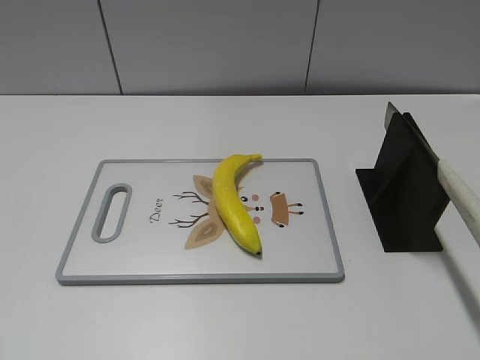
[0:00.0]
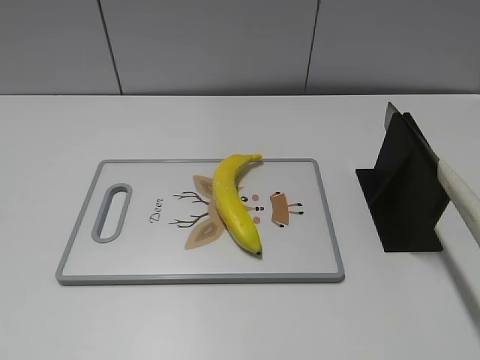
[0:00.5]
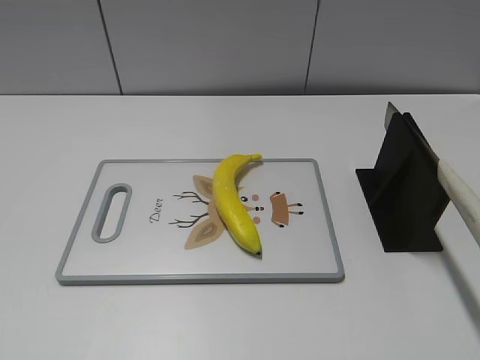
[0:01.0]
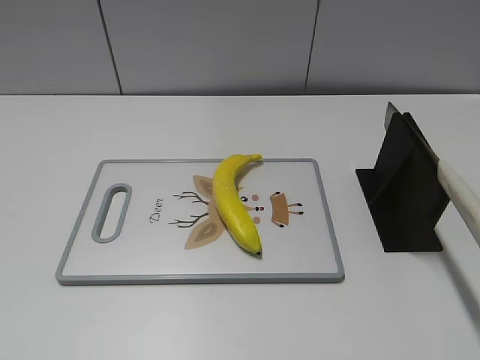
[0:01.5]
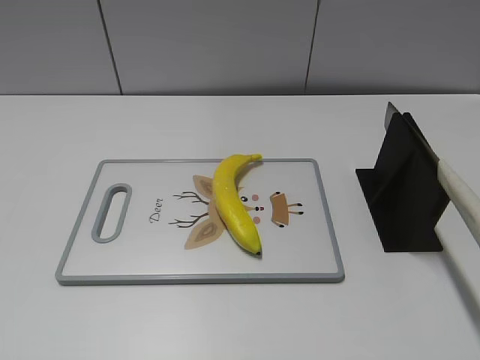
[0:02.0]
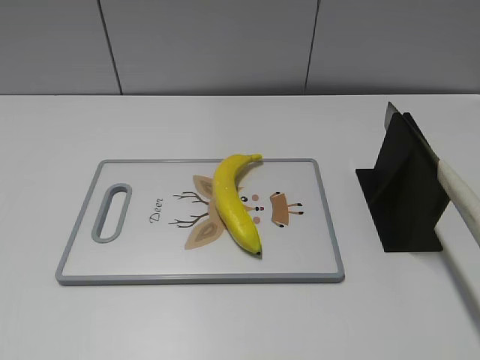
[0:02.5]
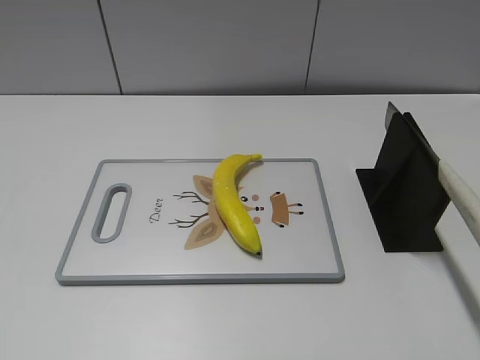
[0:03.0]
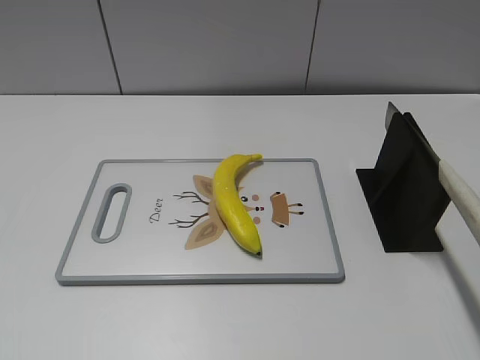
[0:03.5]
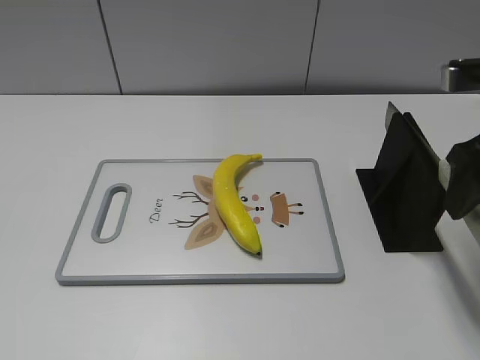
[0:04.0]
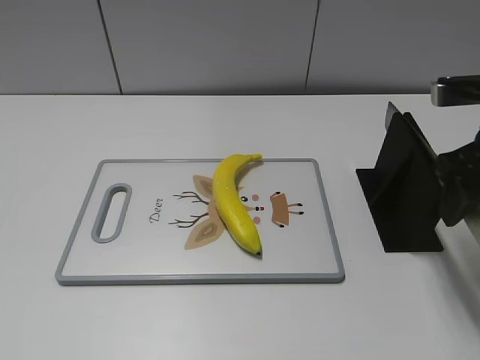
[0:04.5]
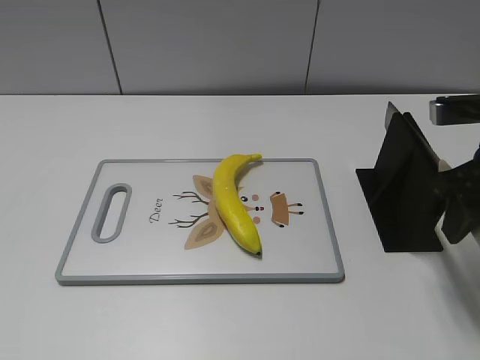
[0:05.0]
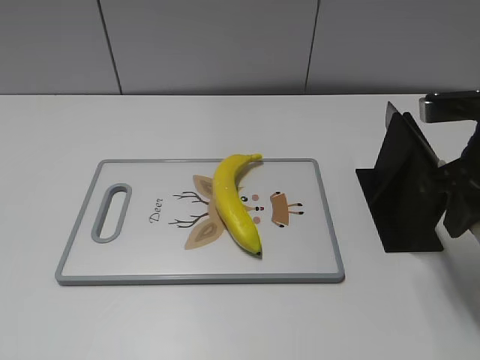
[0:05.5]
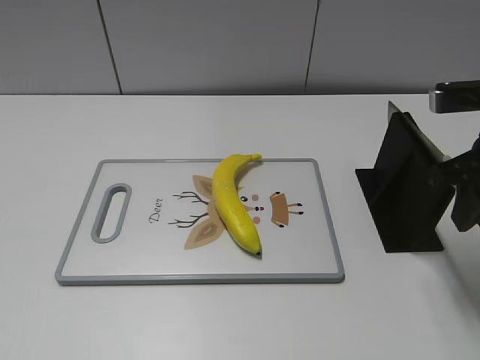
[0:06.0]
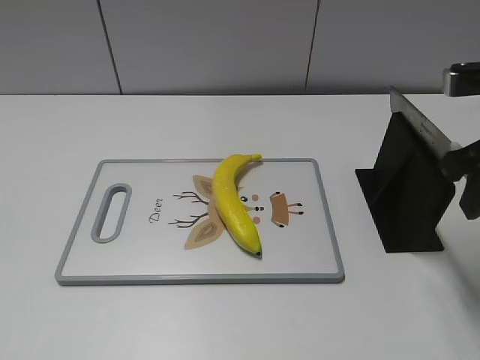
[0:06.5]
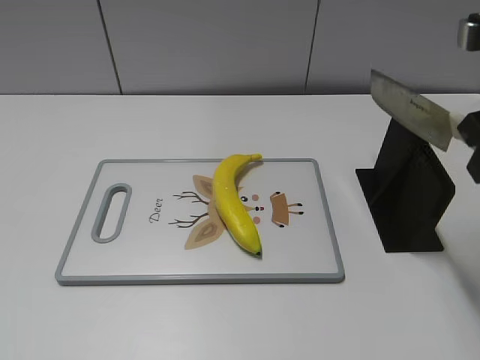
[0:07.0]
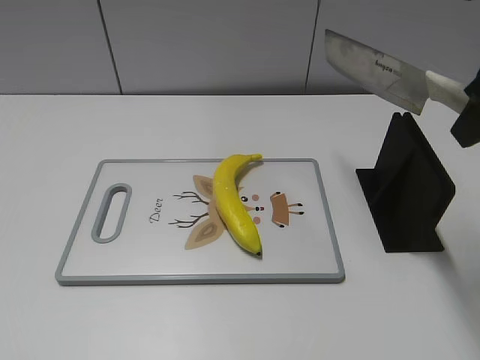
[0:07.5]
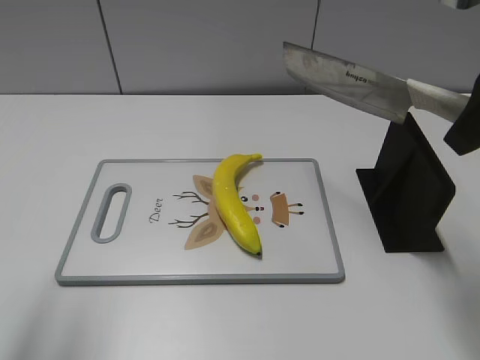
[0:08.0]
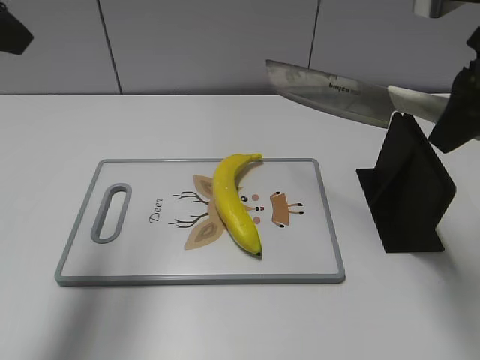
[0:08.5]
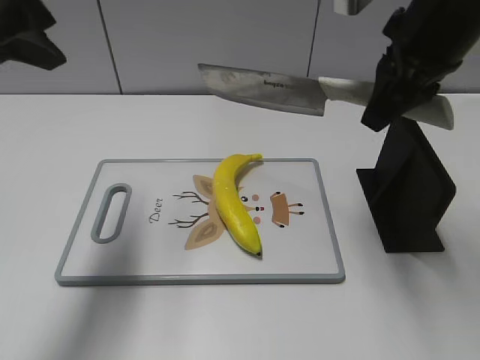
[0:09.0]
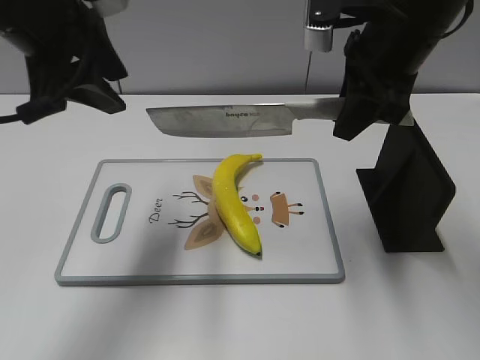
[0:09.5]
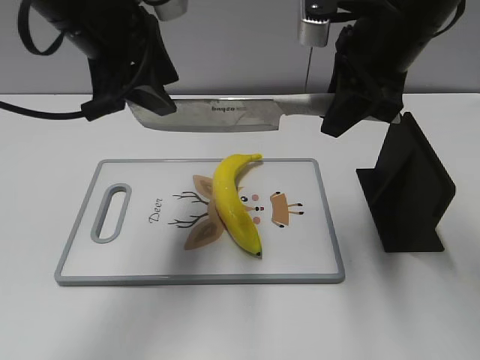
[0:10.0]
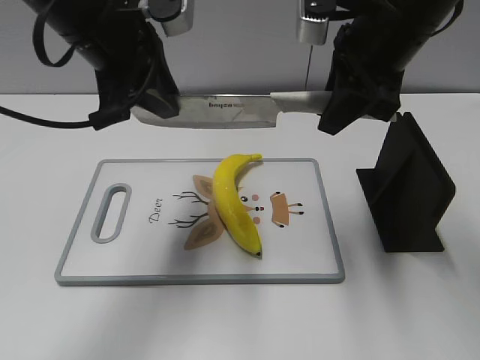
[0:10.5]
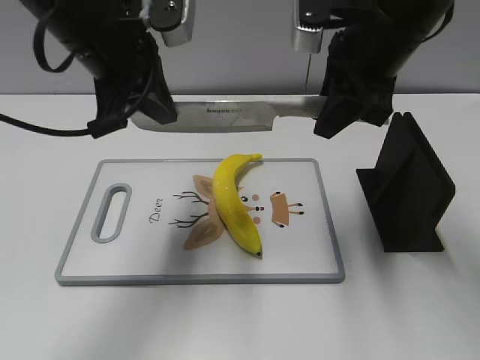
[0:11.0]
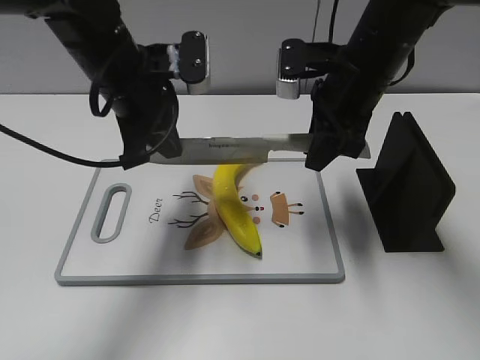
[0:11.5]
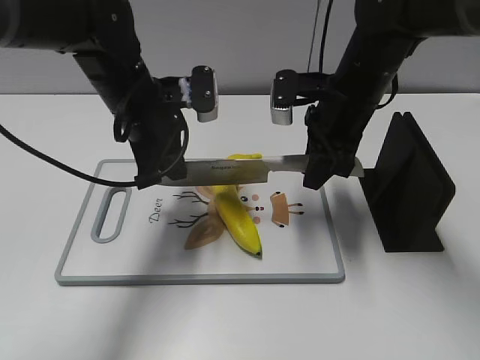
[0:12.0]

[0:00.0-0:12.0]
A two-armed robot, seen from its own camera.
Task of the whole recording: cut plastic banana.
Step, 0:00.0 to 0:06.5: Grab the knife handle with your right hand.
0:02.0 to 0:04.0: The right gripper moves forward, roughly 25 cm.
0:04.0 to 0:06.0: The right gripper closes its fingers.
0:06.0 to 0:08.0: The right gripper moves upward, roughly 10 cm. Meanwhile the left gripper travels forward and upward by roughly 20 cm.
0:08.0 to 0:10.0: The right gripper travels to the left and forward by approximately 10 cm, while the left gripper travels forward and to the right by approximately 20 cm.
0:10.0 to 0:12.0: Both grippers move downward, about 10 cm. The left gripper closes up.

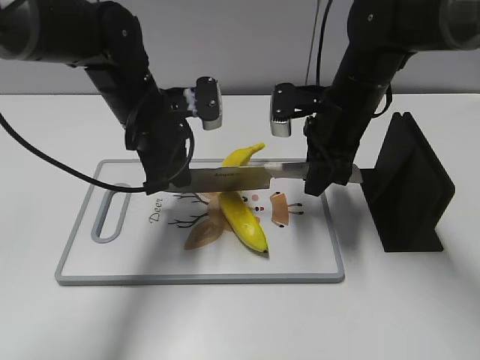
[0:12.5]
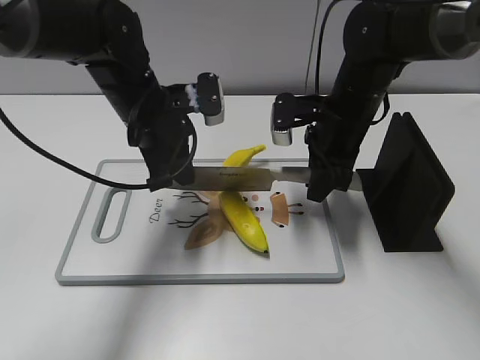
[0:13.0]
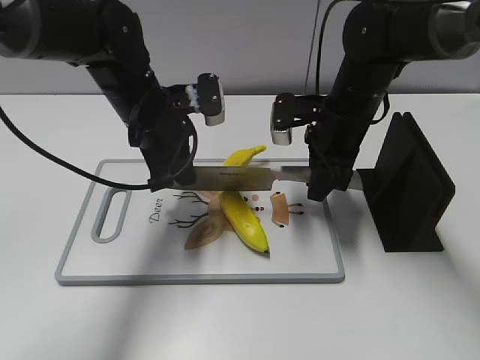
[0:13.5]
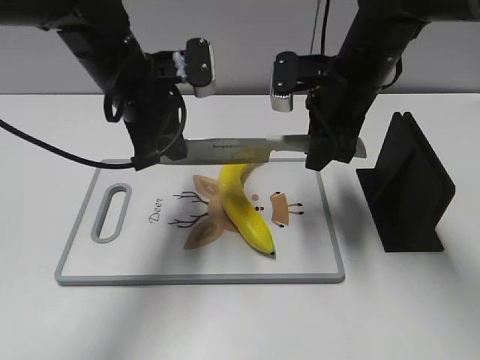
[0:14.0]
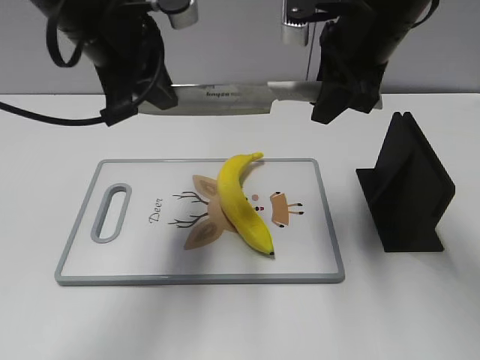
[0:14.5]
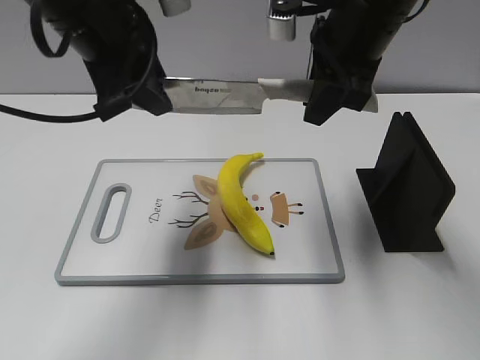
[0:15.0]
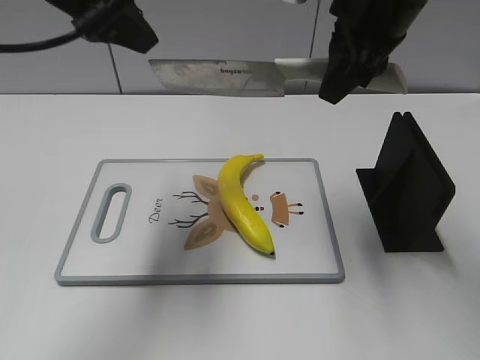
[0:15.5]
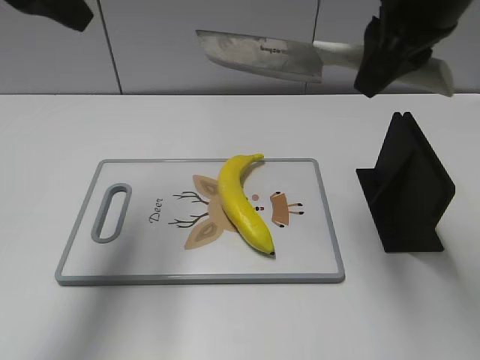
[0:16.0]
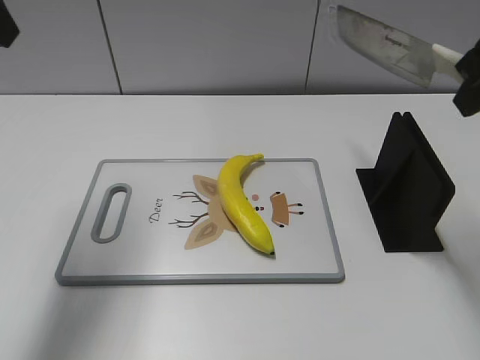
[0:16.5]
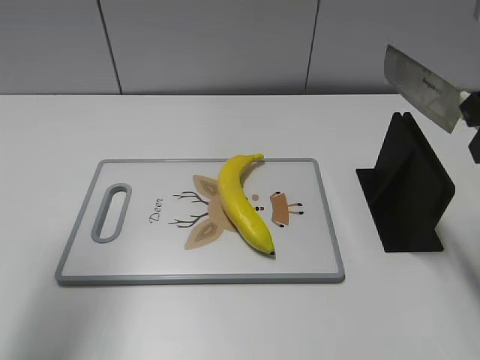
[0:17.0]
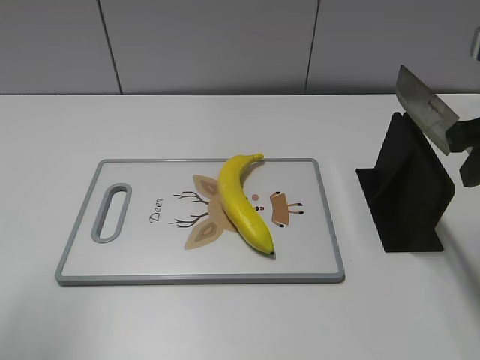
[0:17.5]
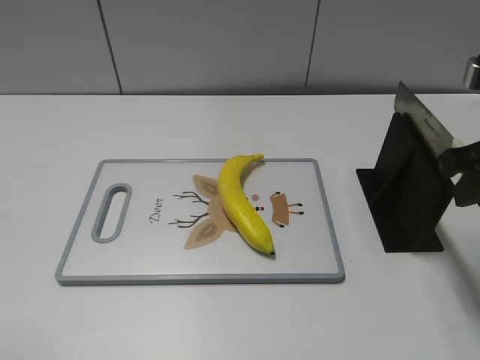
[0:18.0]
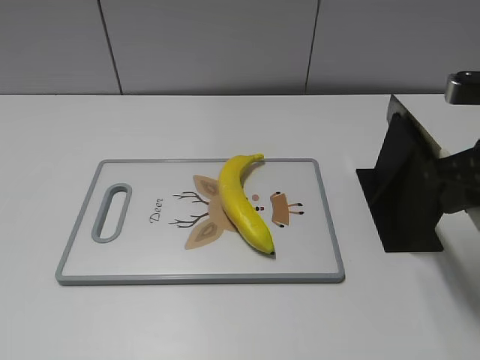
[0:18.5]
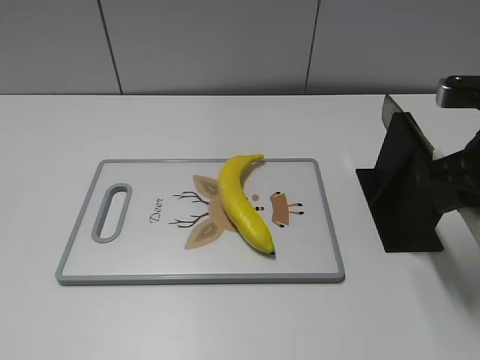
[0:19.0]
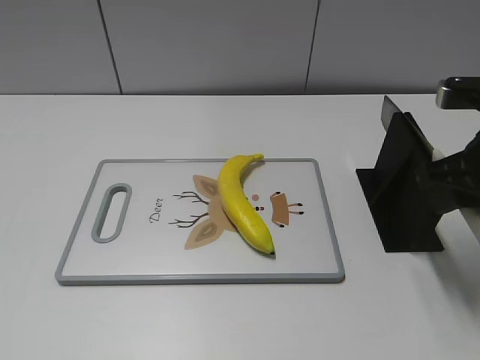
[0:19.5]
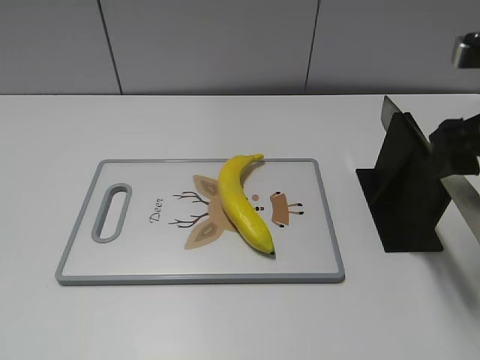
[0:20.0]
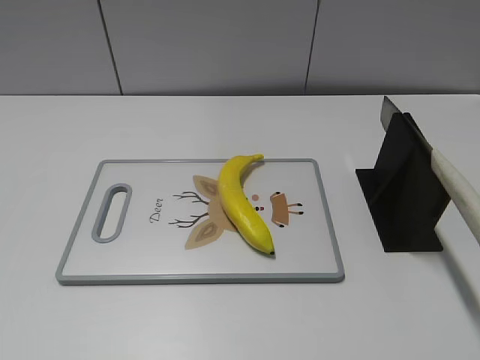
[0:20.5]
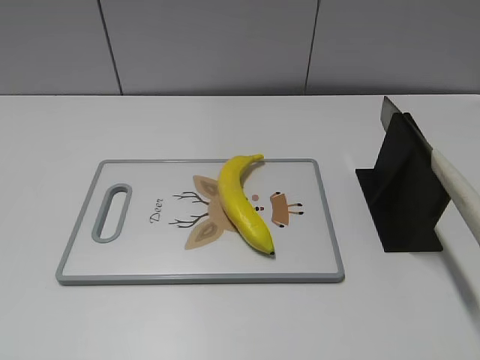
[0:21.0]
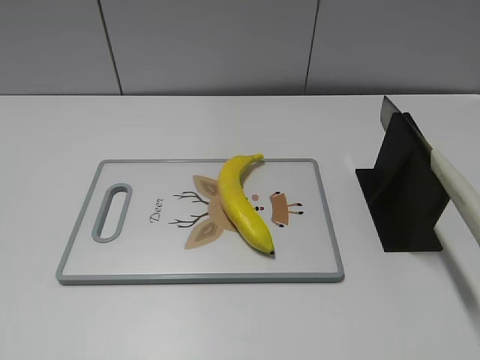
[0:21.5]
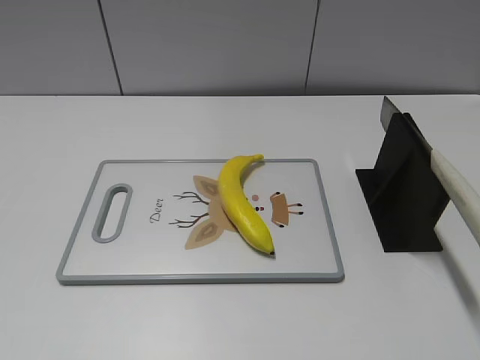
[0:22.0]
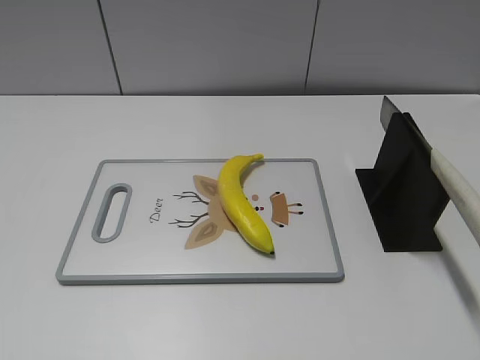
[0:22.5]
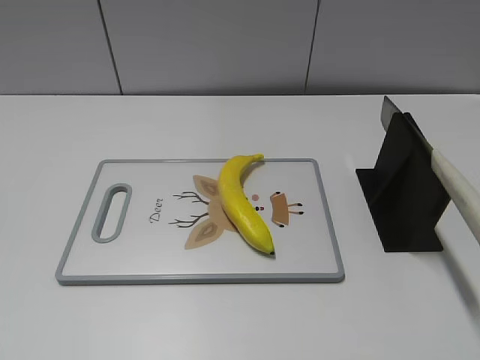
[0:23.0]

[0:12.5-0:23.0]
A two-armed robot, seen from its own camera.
Task of the whole recording: cut plastic banana.
Step, 0:13.5 to 0:15.0: Cut the banana with your right hand.
Step, 0:15.5 to 0:18.5: Lift the knife with your right hand.
Step, 0:19.0 to 0:23.0: Place the knife on the storage rack with your right hand.
0:12.5 to 0:14.5: The two grippers go some 15 cm upward.
0:14.5 to 0:16.5: The left gripper travels to the left and upward by roughly 15 cm, and opens up; the right gripper goes approximately 15 cm to the right, backward and upward.
0:16.5 to 0:19.0: The right gripper travels downward by approximately 15 cm, while the left gripper travels backward by roughly 30 cm.
0:19.0 to 0:21.0: The right gripper is displaced backward by about 20 cm, and opens up.

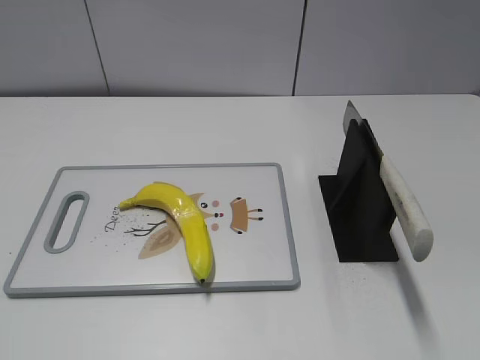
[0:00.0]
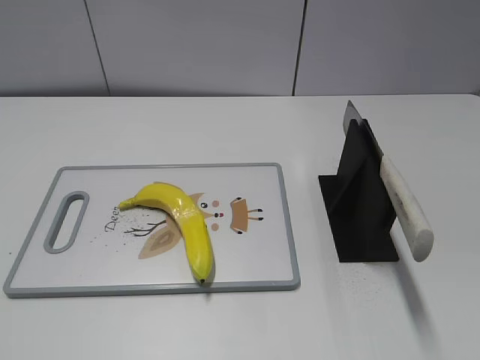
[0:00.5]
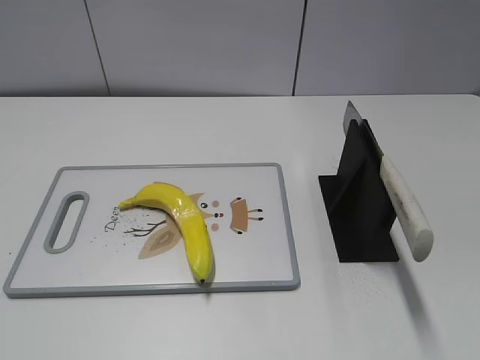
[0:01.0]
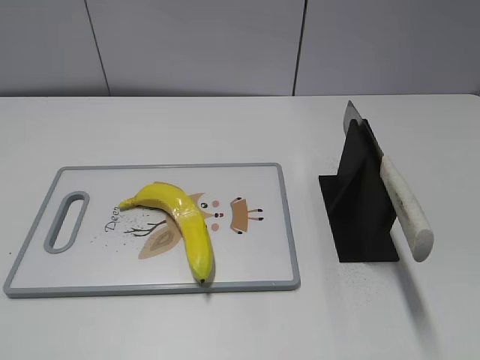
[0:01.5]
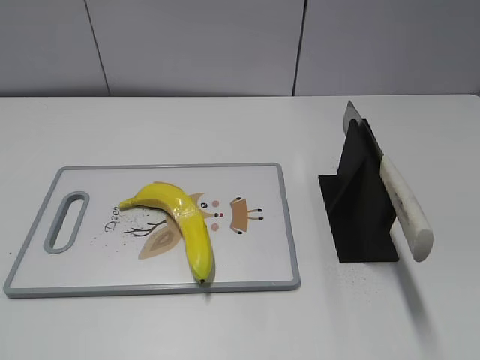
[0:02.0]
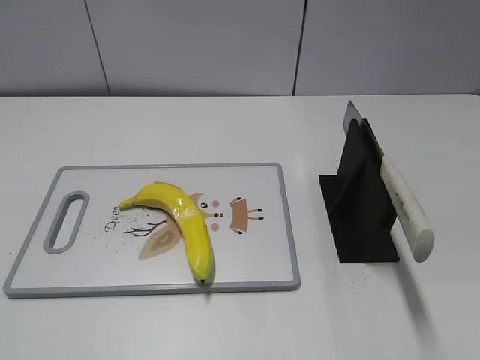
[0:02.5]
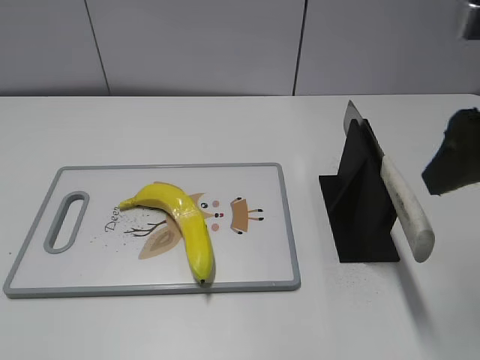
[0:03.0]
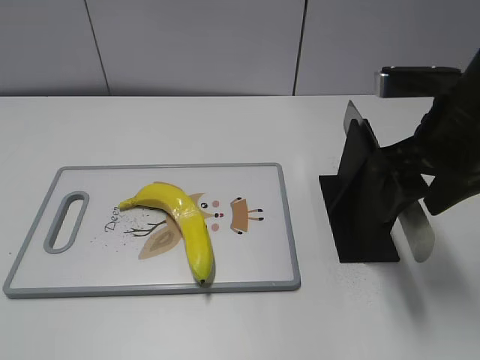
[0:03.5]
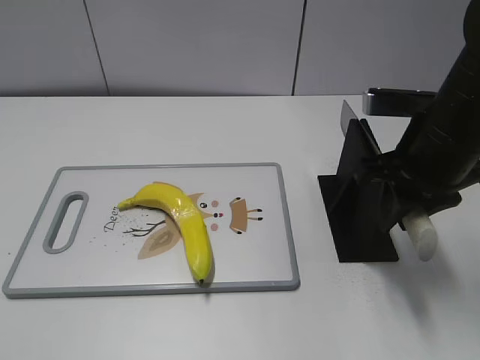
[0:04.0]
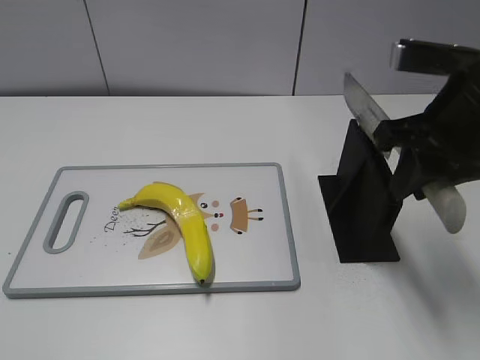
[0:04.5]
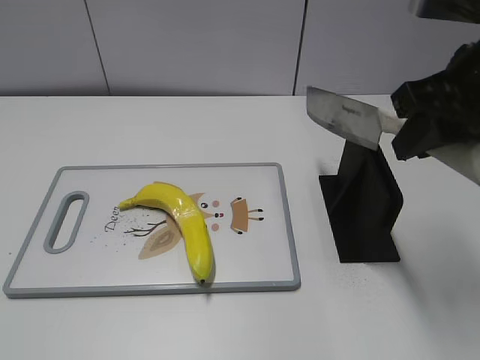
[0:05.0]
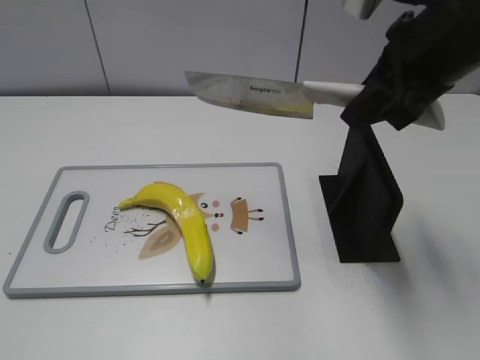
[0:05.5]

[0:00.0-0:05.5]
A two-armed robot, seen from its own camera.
Task of the whole recording: cut plastic banana.
Step, 0:00.0 to 0:04.5: Grab the knife handle with your right hand.
0:02.0 to 0:03.5: The right gripper heads forward, covering roughly 25 cm.
0:03.5 to 0:05.5: The right gripper goes roughly 5 cm upward, and closes its fingers.
